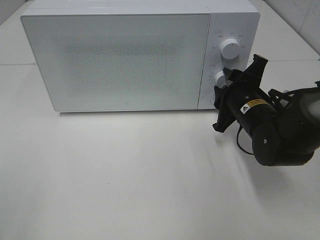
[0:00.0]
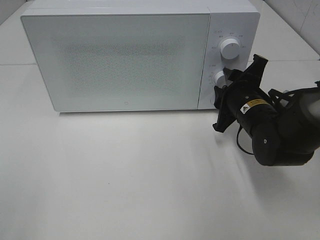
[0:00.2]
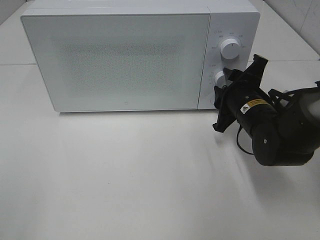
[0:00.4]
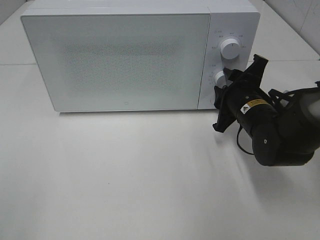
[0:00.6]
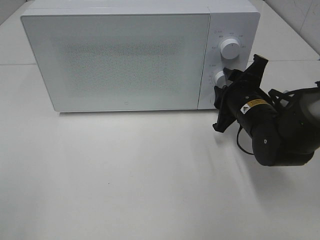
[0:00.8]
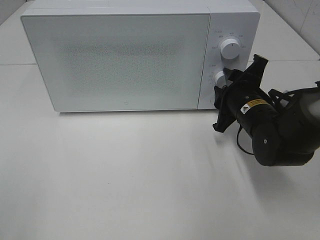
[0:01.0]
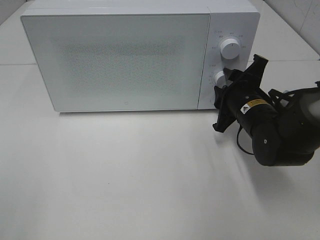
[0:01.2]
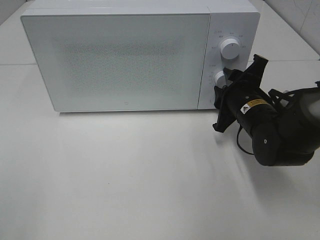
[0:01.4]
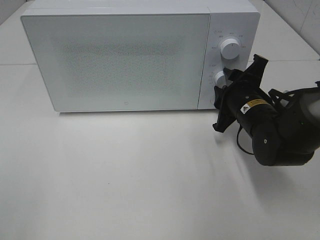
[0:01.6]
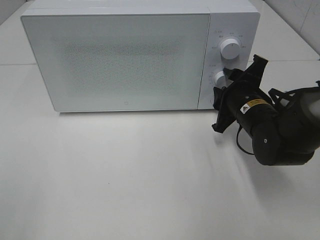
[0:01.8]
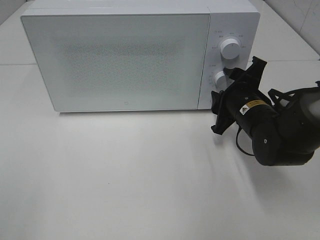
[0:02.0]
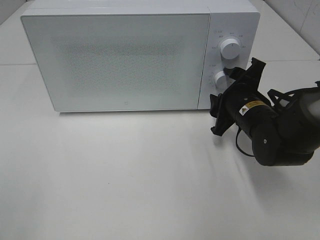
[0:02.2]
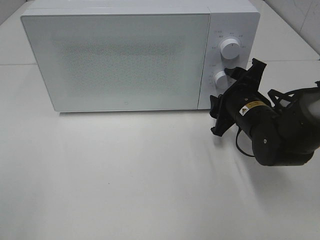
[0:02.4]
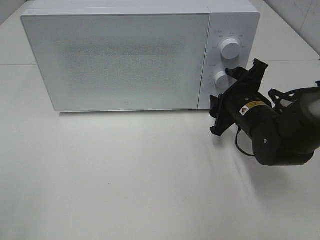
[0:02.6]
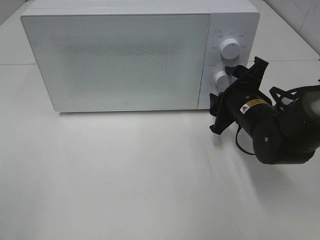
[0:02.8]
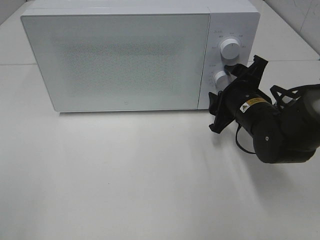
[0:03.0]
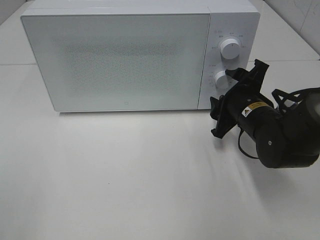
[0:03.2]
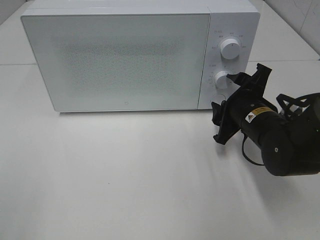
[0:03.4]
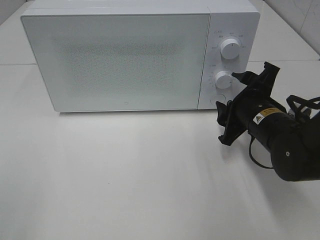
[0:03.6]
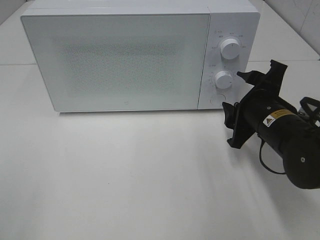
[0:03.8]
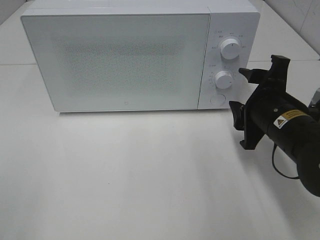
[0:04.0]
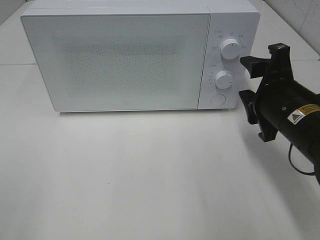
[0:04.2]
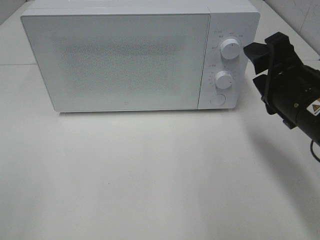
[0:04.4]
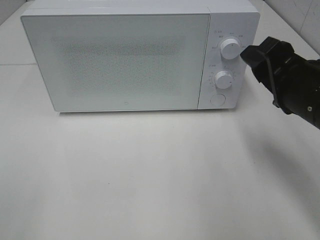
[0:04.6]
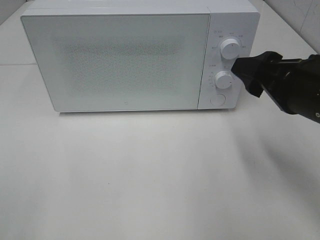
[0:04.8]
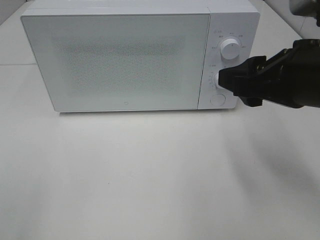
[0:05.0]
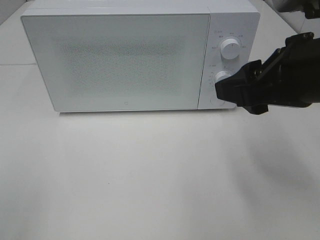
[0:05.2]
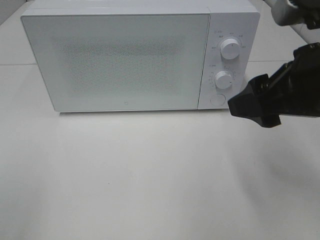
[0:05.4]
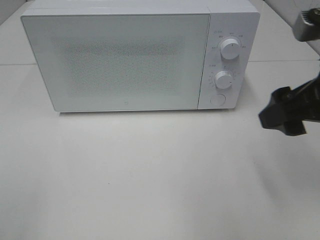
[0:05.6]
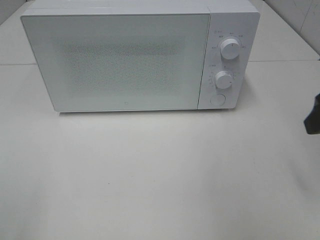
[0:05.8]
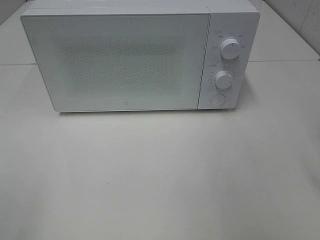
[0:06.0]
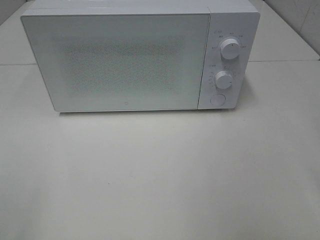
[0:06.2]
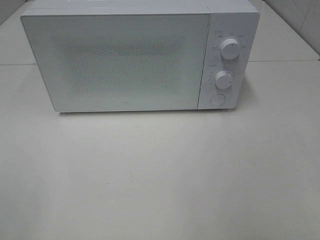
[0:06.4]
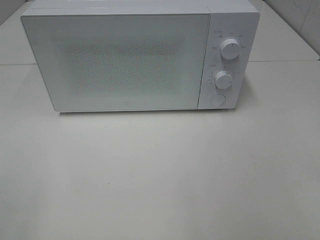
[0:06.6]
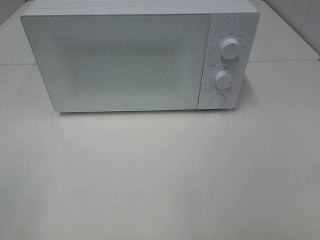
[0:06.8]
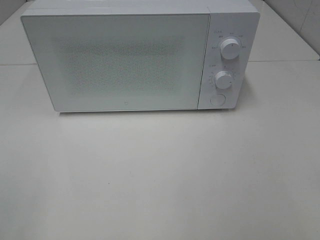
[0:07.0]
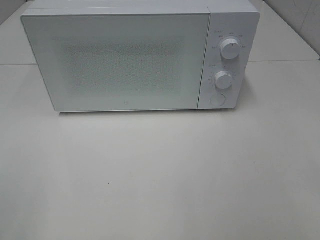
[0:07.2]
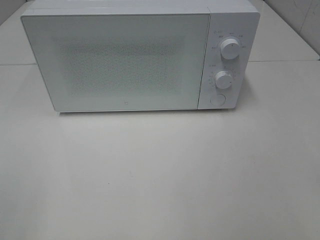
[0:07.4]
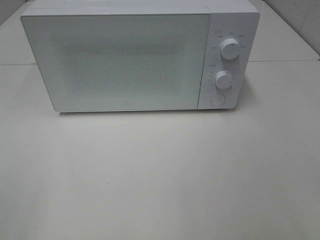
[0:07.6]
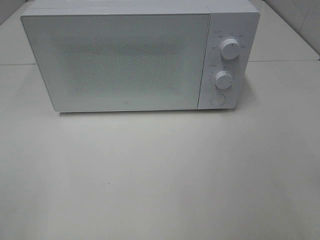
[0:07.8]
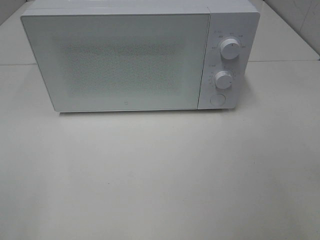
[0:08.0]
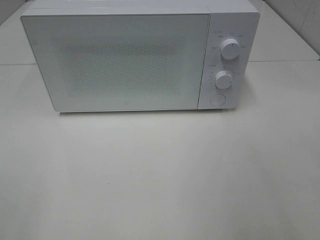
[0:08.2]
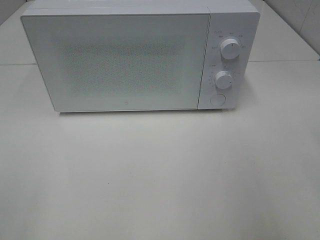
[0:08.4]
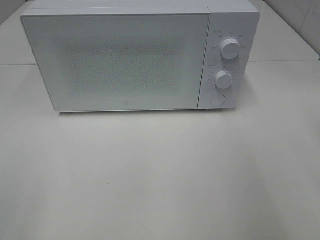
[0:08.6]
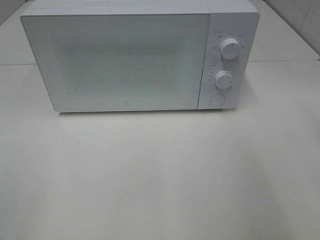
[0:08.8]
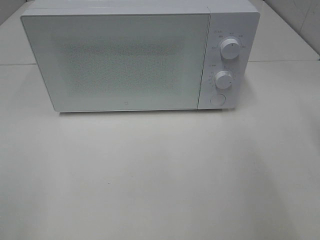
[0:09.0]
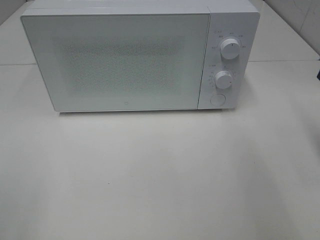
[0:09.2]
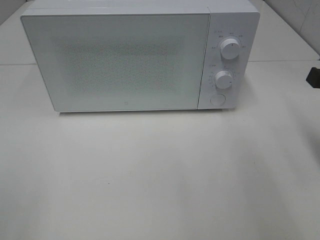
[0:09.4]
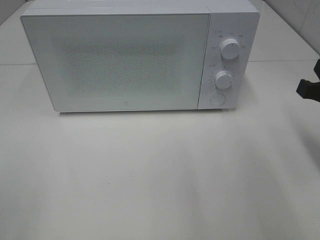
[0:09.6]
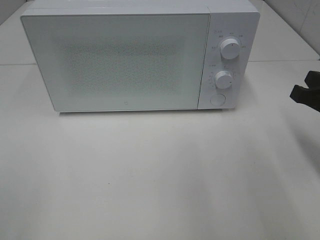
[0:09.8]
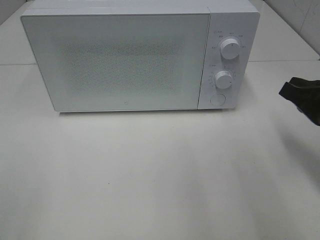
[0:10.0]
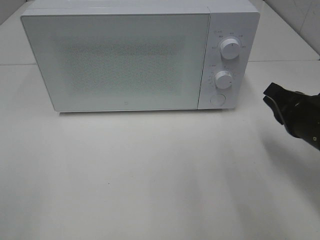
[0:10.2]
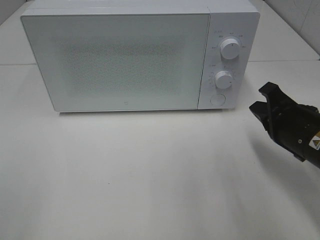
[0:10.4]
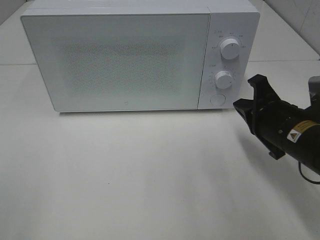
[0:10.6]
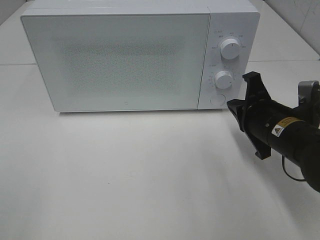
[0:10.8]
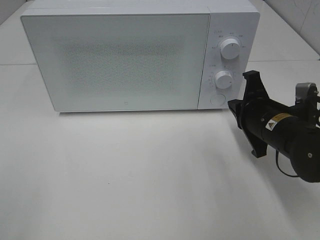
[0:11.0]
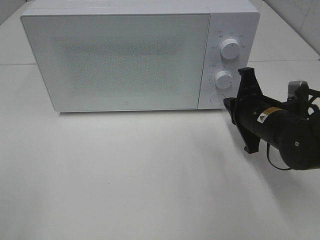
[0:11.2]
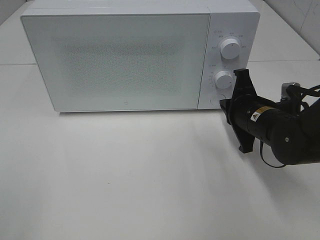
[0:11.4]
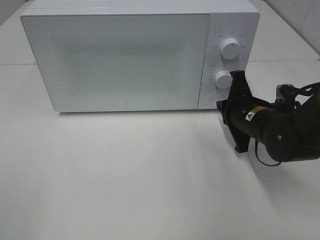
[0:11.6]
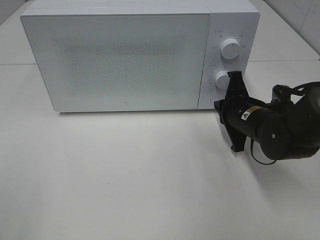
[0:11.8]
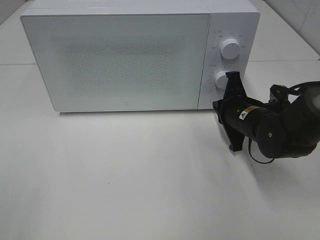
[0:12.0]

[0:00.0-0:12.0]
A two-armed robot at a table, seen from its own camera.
Task of the whole recording: Heat the burger.
0:00.0 to 0:01.6: Both grippers stay about where they are.
0:01.6 to 0:03.0: There are only small adjustments of the grippers.
0:03.0 to 0:04.4: The right gripper goes some 15 cm backward and upward.
0:04.4 to 0:06.0: The right gripper shifts about 10 cm to the right and upward.
0:09.0 to 0:10.4: The right gripper moves downward and to the left, approximately 15 cm.
0:10.4 to 0:12.0: The right gripper is displaced forward, to the left and downward by some 10 cm.

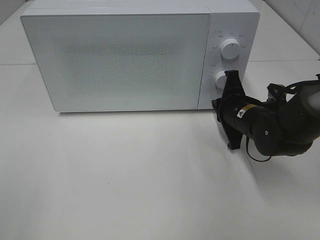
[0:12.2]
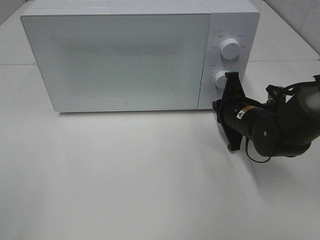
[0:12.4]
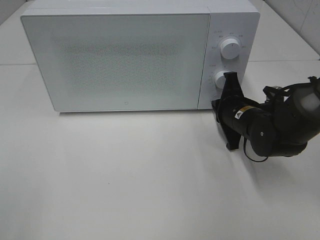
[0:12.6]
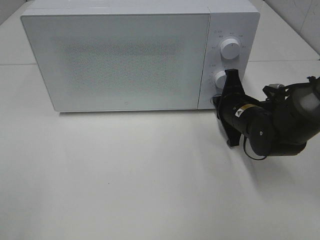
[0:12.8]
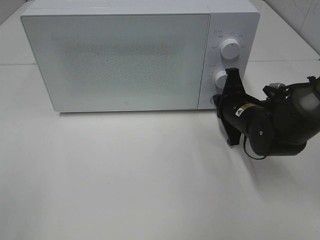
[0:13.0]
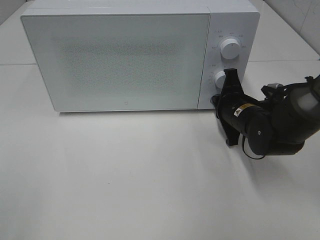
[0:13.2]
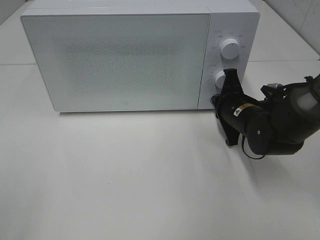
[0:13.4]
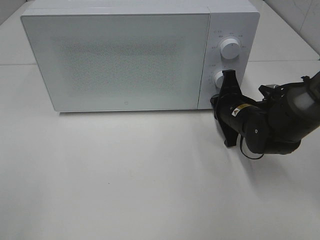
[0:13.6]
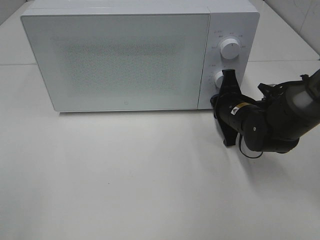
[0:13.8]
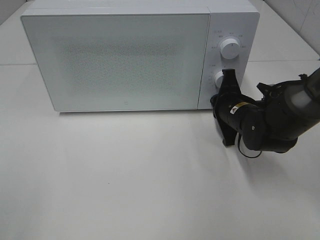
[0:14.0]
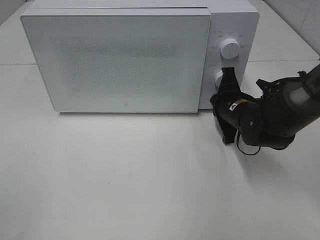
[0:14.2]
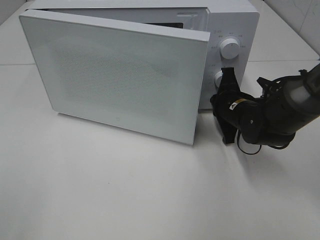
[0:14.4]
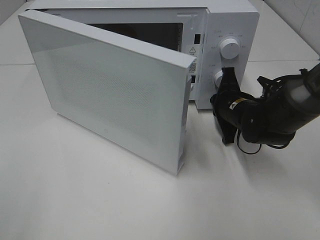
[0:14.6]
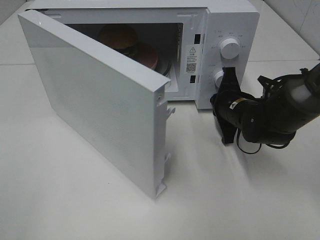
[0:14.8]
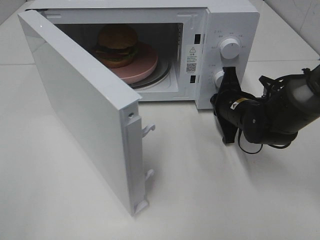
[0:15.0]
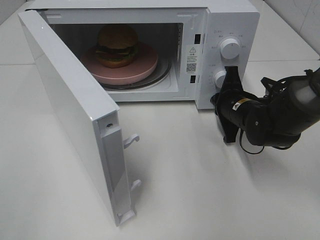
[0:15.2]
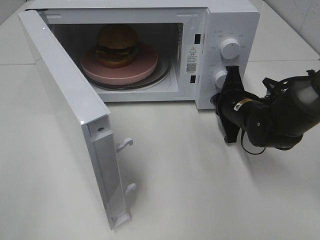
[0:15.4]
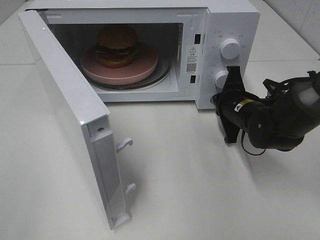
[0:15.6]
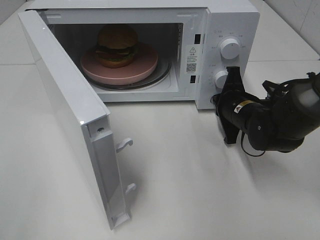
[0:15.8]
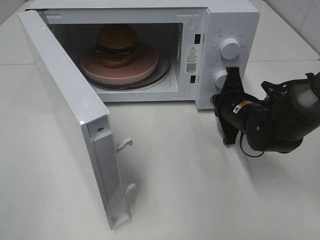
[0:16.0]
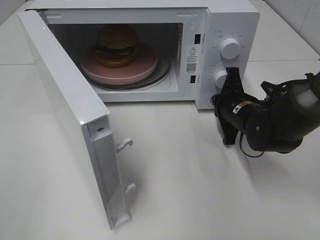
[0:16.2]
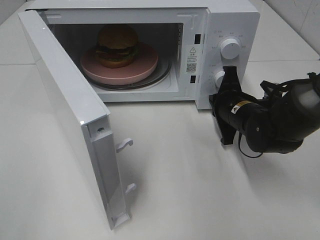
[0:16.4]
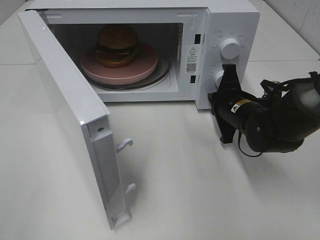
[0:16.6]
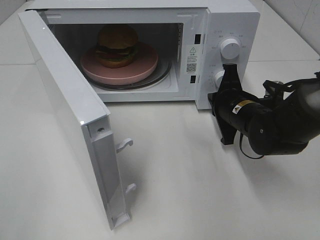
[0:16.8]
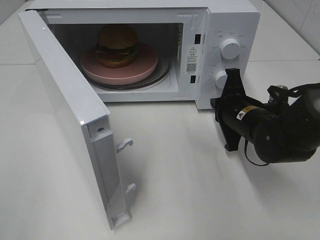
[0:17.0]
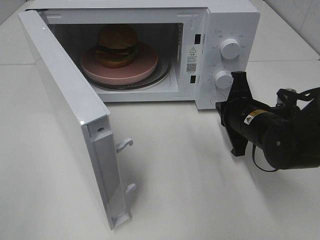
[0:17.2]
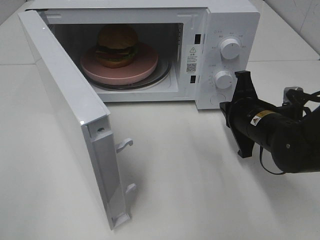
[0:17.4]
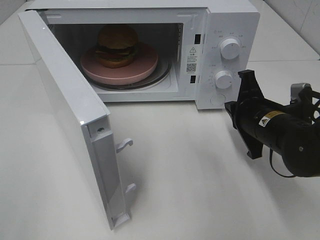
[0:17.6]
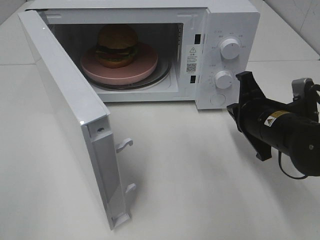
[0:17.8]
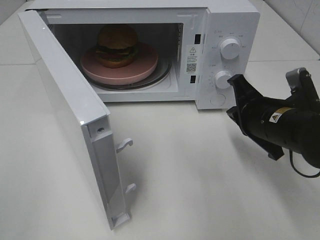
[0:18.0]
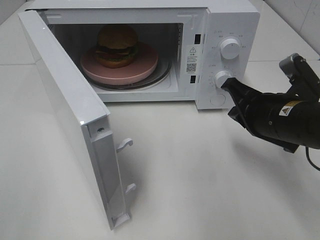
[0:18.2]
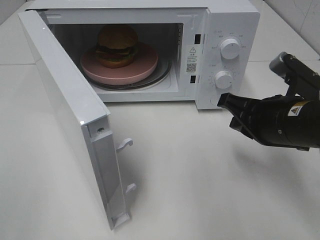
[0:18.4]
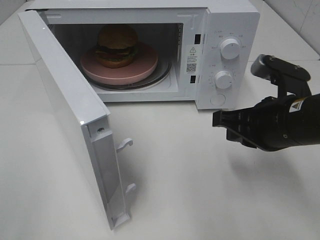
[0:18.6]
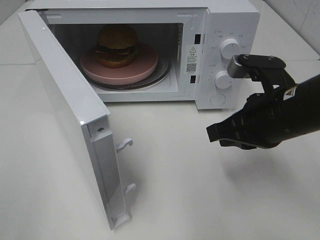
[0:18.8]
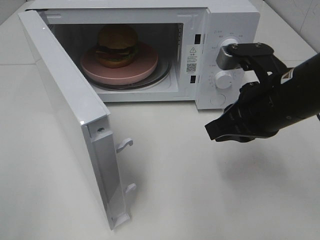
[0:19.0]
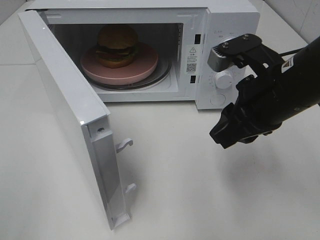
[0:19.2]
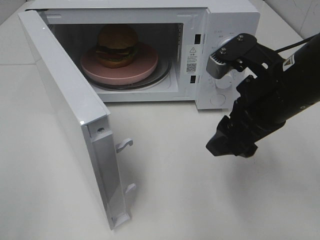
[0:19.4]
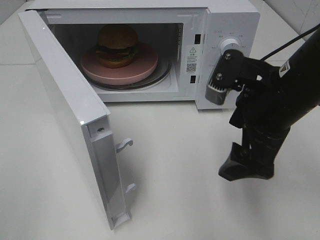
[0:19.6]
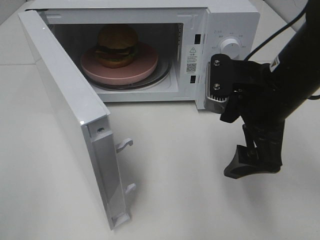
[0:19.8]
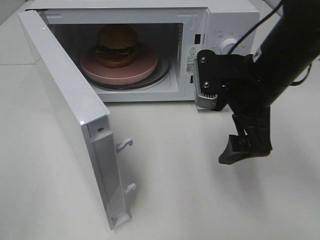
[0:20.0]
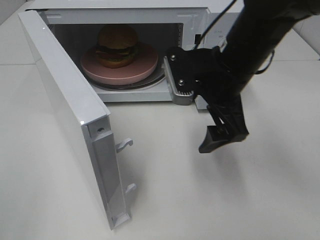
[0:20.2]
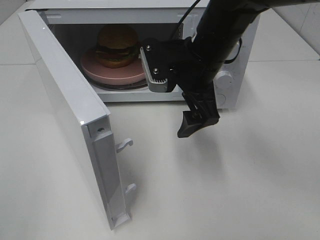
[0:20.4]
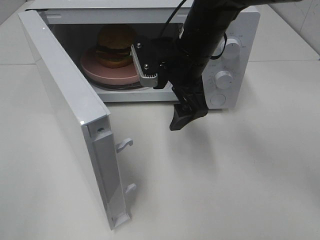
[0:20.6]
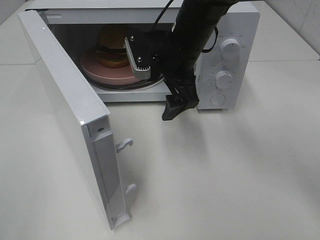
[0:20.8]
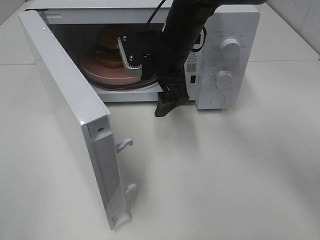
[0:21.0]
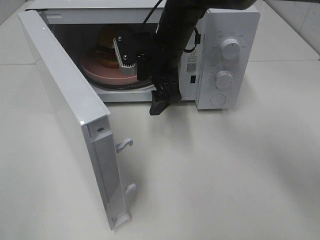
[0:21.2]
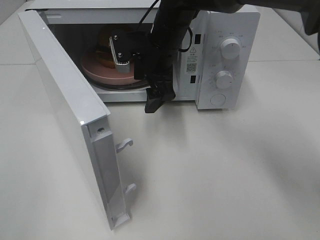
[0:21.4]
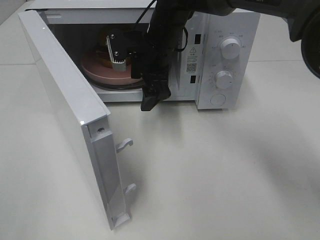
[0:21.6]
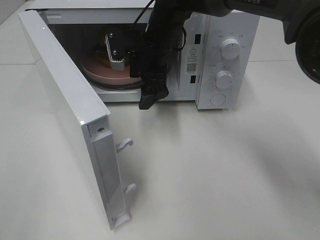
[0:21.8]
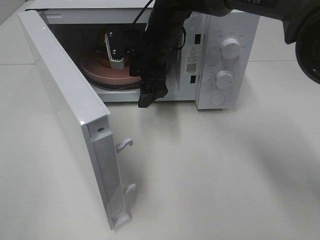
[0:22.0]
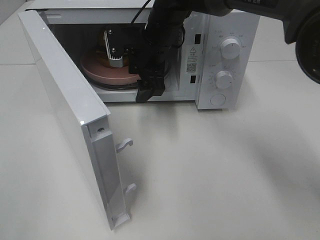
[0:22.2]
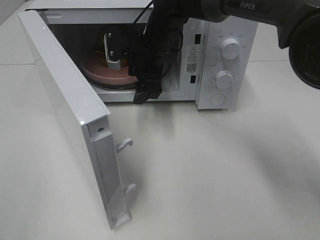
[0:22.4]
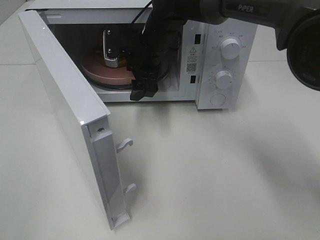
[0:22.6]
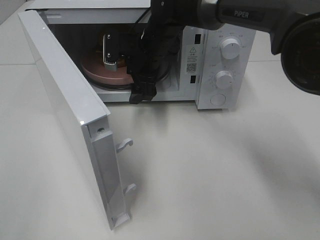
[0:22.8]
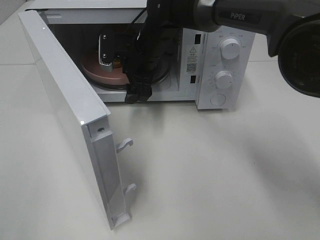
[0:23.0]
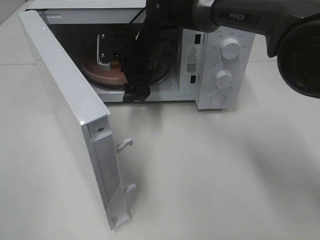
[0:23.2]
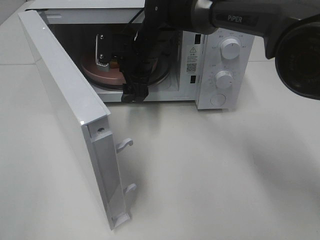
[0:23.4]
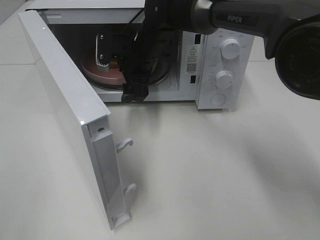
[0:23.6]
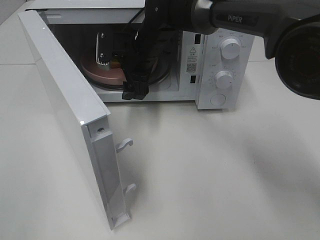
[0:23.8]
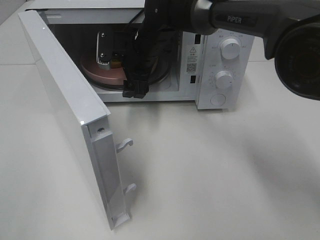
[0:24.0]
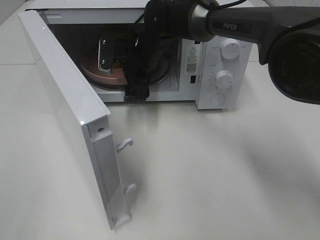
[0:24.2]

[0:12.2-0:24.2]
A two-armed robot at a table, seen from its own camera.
Task of the whole recording: Heat the burger.
Step, 0:12.2 to 0:16.4: Right hand: press the switch.
0:12.2 to 0:13.8: The grippers make only small movements.
0:15.2 to 0:16.6: There are only small adjustments of the grippers.
0:16.6 to 0:18.2: The right gripper heads backward and upward, covering roughly 10 cm.
0:18.2 to 0:19.8: The right gripper heads upward, covering about 5 cm, and opens.
0:19.8 to 0:21.2: The right gripper shifts approximately 20 cm forward and to the left.
0:21.2 to 0:22.6: The grippers stay close to where they were, moving slightly.
0:22.6 to 0:24.2: The grippers move only a little.
